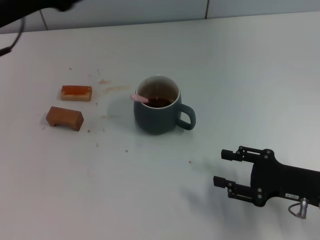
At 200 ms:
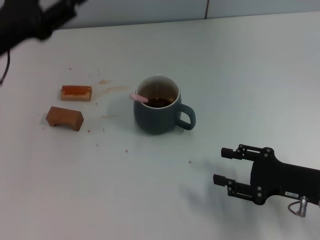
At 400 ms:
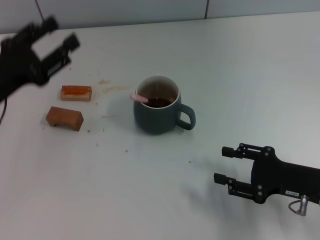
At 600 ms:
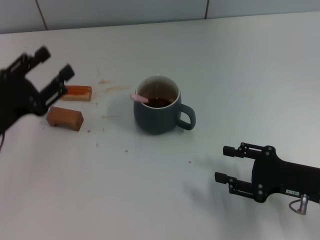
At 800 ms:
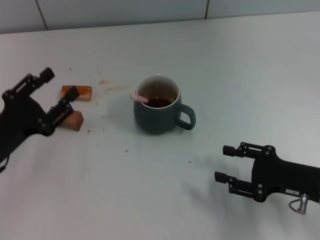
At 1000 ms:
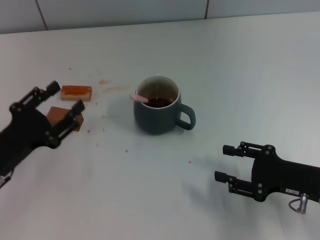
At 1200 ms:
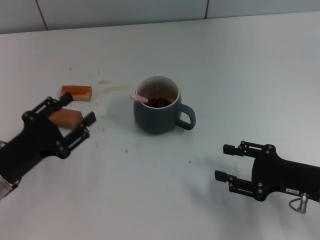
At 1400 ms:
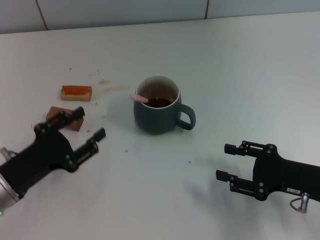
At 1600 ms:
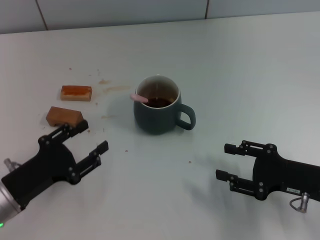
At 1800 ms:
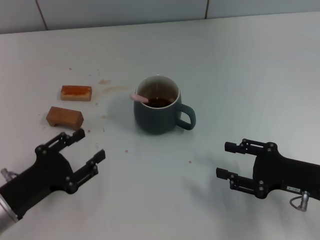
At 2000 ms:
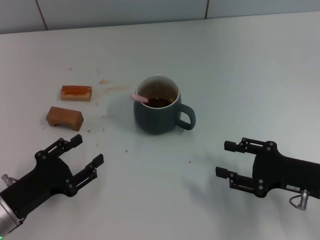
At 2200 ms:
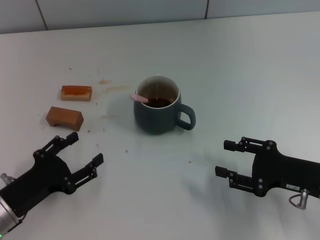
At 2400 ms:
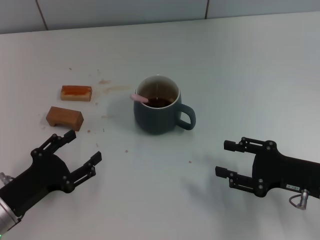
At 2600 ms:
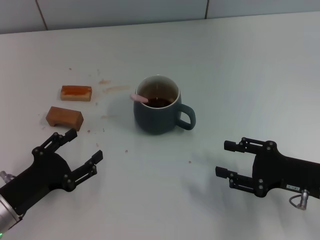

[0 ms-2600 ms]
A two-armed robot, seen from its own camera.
Task of the whole recording: Move the grey cup to the center, lift the pink spoon, stir it three times in the cup, and put the spoon into the cup.
0 ms to 1200 ms: The left gripper goes some 20 cm downward and backward.
1200 ms to 2600 ms: The grippers stay close to where they were, moving slightly.
